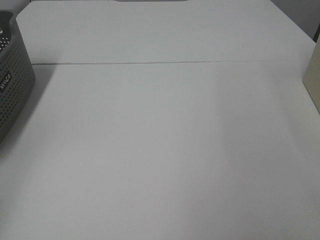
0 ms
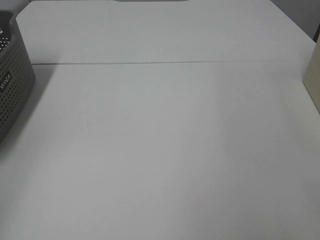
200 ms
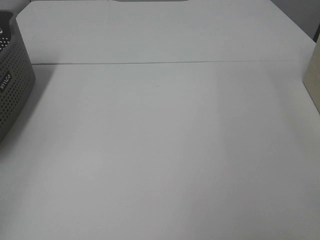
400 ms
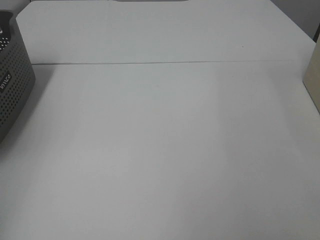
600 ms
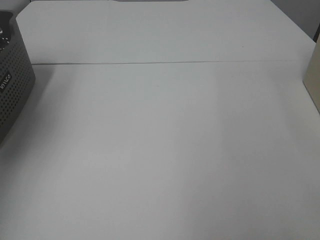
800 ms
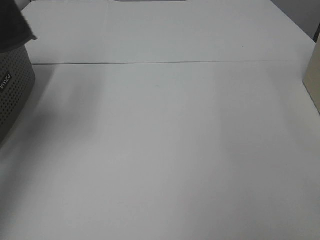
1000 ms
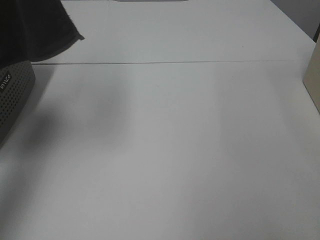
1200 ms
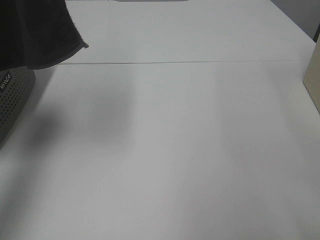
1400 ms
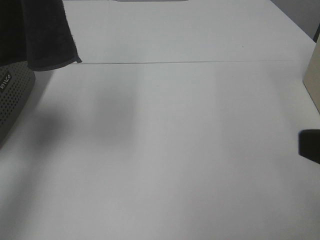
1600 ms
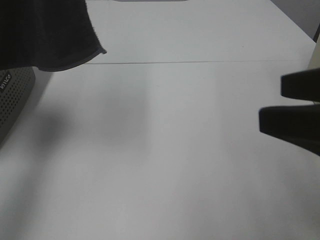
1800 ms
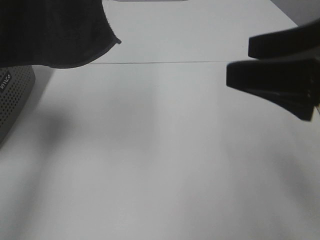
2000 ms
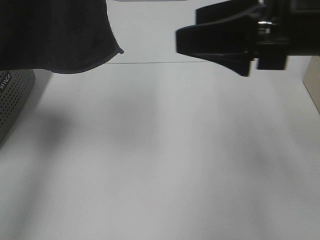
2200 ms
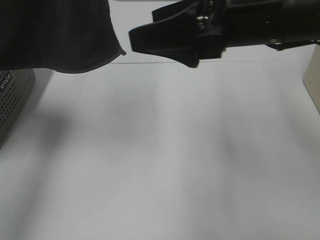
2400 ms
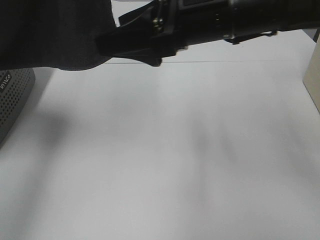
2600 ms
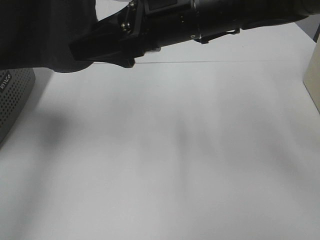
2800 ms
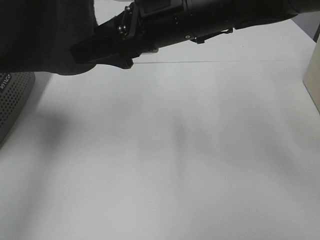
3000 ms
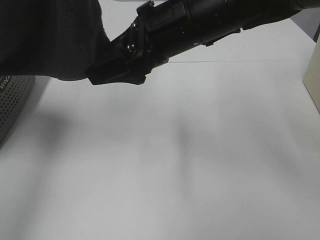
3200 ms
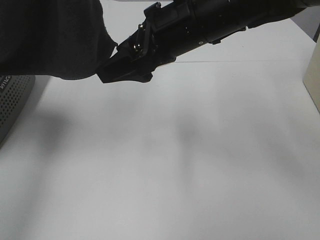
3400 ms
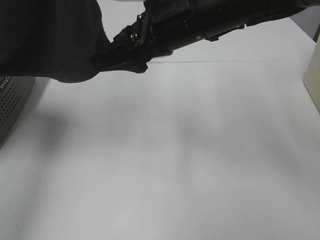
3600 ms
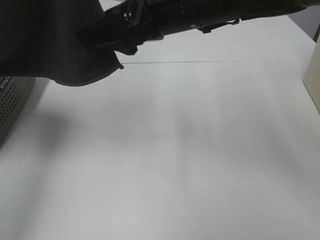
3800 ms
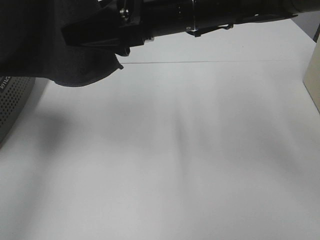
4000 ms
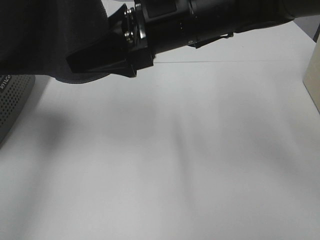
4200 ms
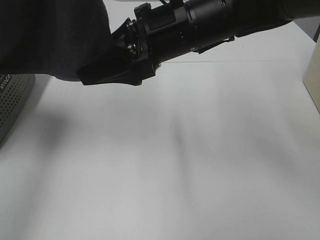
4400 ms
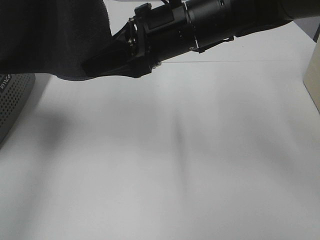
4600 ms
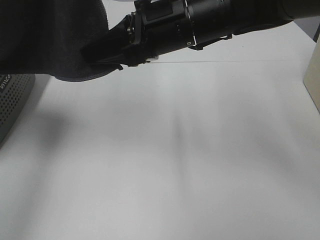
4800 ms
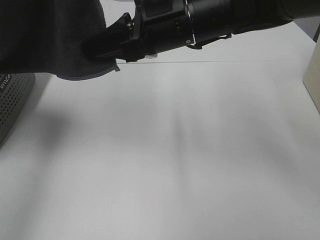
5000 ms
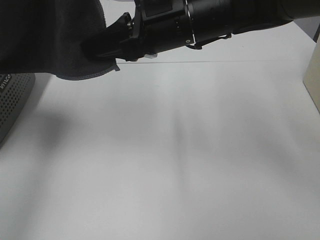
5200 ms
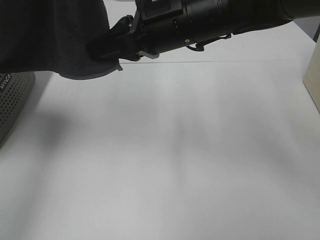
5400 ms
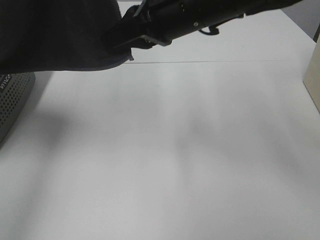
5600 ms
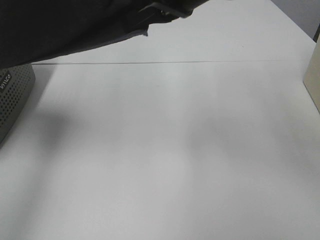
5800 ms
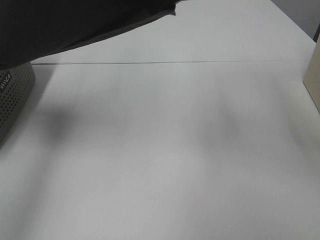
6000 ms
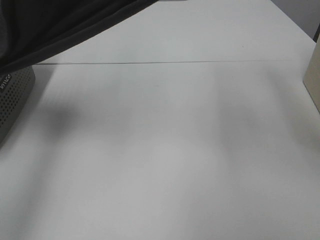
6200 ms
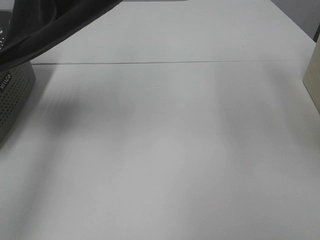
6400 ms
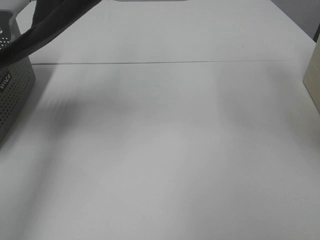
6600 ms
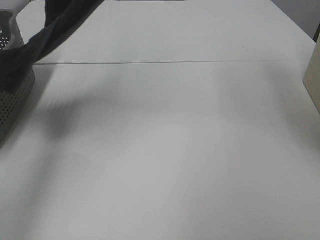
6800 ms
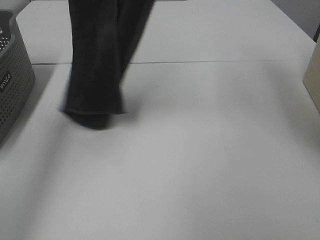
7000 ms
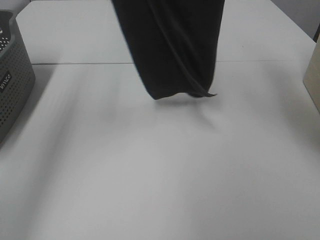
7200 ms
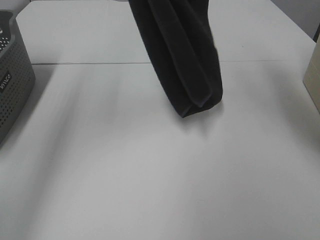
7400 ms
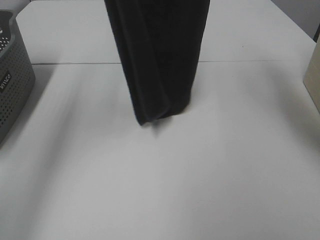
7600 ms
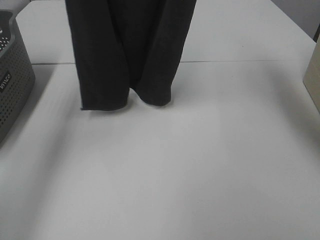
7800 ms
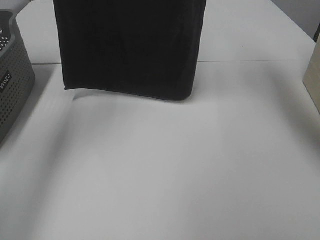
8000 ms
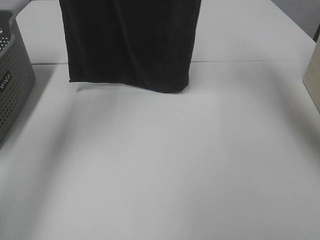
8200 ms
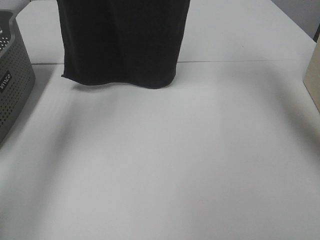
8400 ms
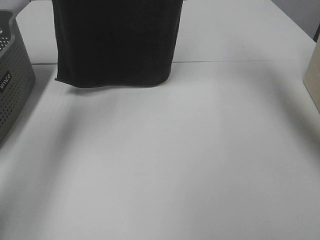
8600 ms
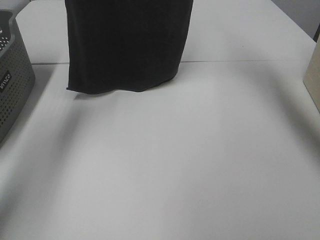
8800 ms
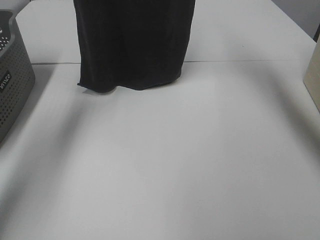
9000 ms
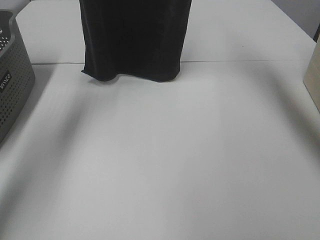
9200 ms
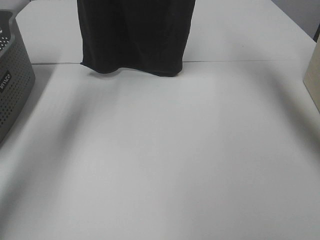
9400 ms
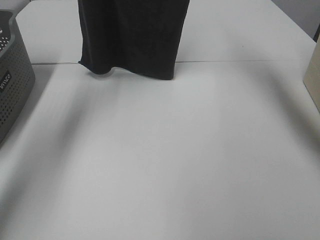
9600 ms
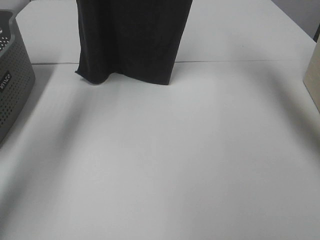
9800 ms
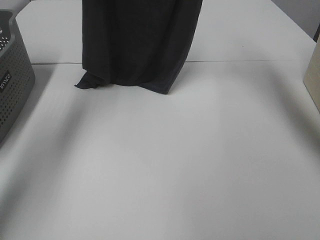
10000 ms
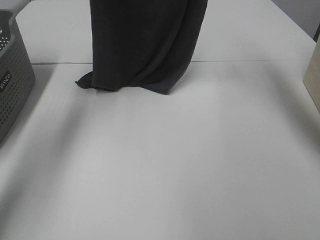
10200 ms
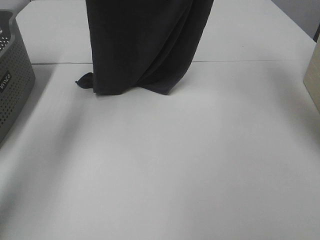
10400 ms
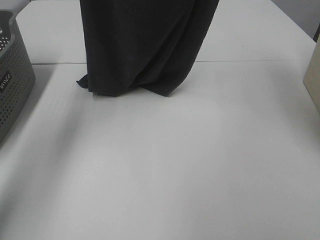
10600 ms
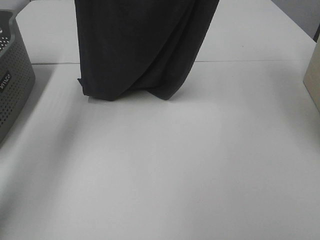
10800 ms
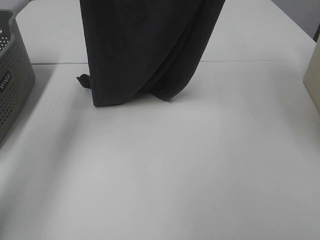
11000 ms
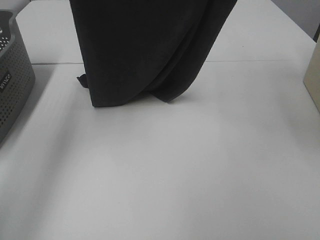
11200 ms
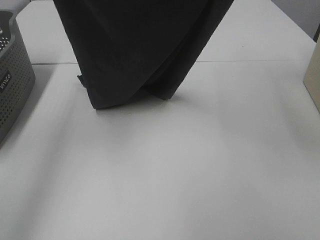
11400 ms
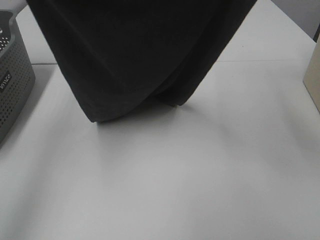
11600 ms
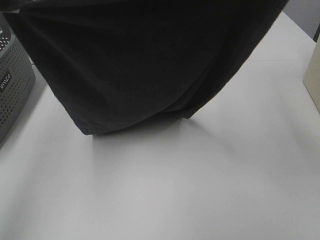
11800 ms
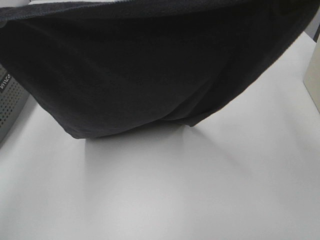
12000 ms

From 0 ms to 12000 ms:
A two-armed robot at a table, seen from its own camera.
Task of the whole recording: Remove the towel and place it.
Step, from 400 ms to 6000 ms: Right hand: grab a corner of the grey towel and straighten it.
From 0 ms to 1600 ms: The right gripper is displaced forward and to the left by approximately 10 cm. The left gripper moves upward and to the right, approximately 30 cm.
From 1600 ms to 3000 ms: The right gripper travels forward and to the left by roughly 30 cm.
From 3000 ms to 4400 ms: The grippers make only small movements.
From 4400 ms to 6000 ms: The right gripper is displaced upward by some 10 cm, and closes up.
From 6000 ms to 7600 ms: The right gripper heads upward, covering roughly 15 cm. Meanwhile the left gripper shifts about 10 cm forward.
From 7600 ms to 9000 ms: The right gripper moves forward and downward, about 10 cm; the left gripper heads forward, covering some 10 cm.
From 9000 ms to 10400 ms: The left gripper changes place by approximately 5 cm. The right gripper is displaced backward by about 5 cm.
From 10400 ms to 12000 ms: The two grippers go approximately 25 cm backward.

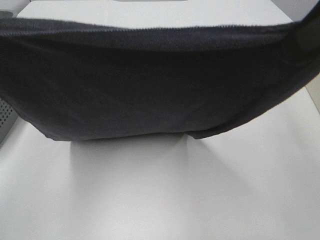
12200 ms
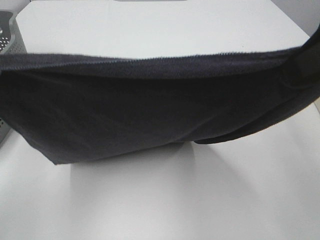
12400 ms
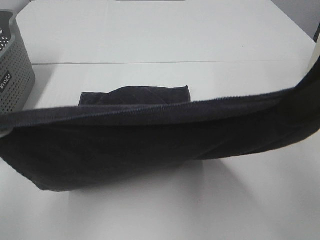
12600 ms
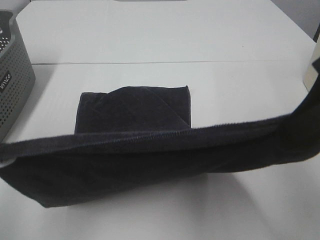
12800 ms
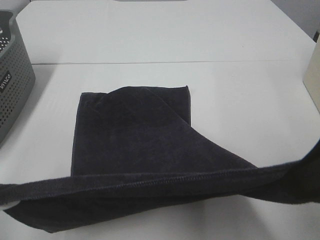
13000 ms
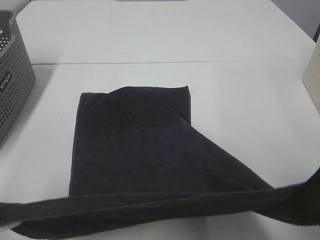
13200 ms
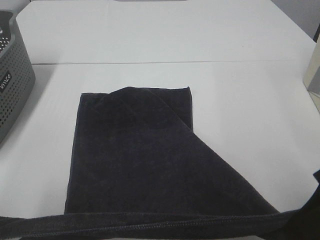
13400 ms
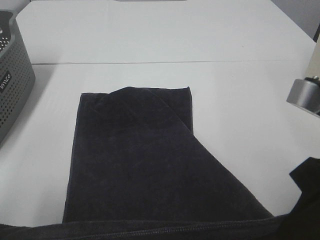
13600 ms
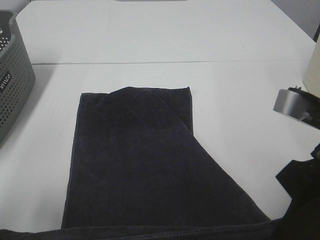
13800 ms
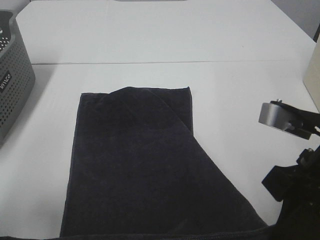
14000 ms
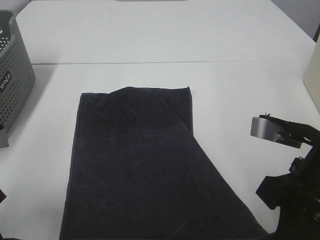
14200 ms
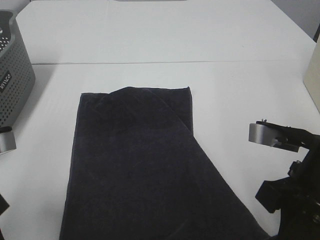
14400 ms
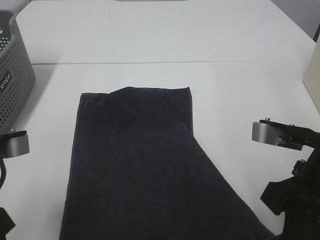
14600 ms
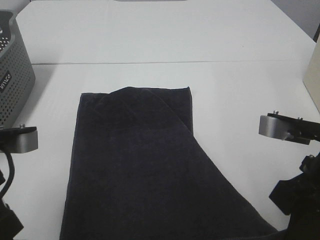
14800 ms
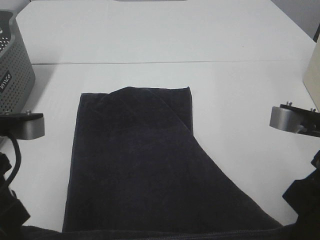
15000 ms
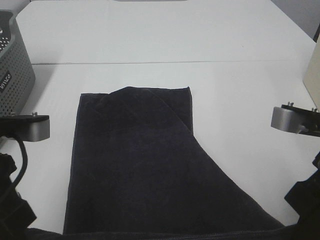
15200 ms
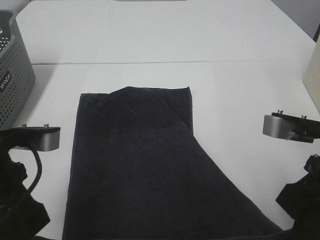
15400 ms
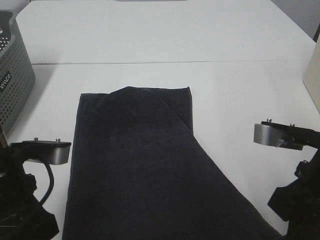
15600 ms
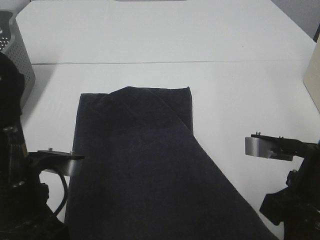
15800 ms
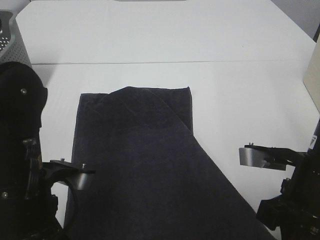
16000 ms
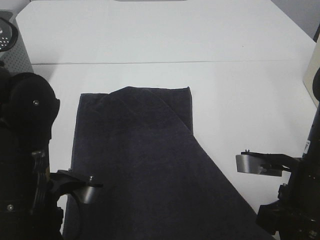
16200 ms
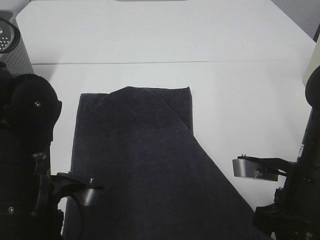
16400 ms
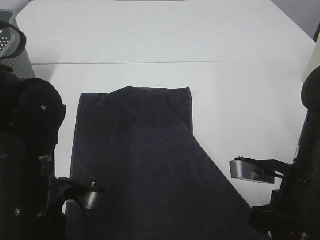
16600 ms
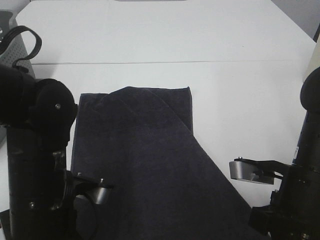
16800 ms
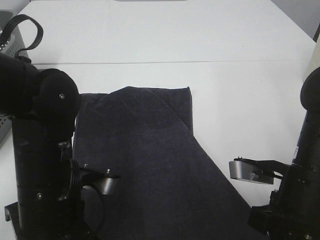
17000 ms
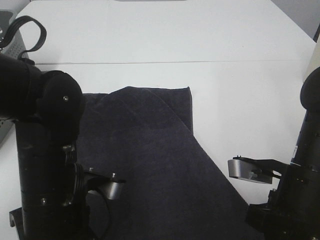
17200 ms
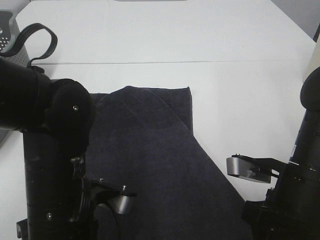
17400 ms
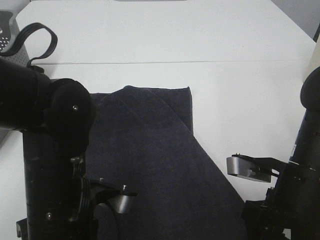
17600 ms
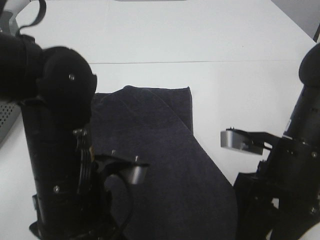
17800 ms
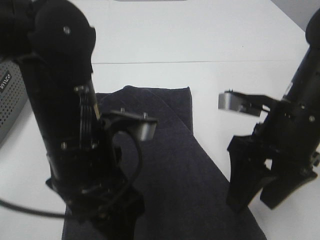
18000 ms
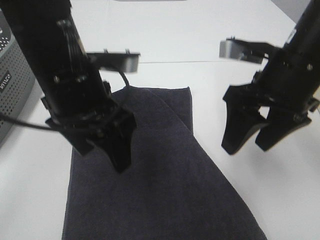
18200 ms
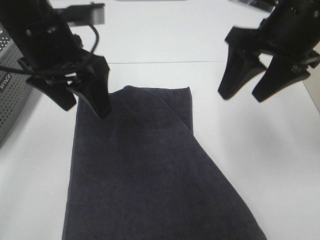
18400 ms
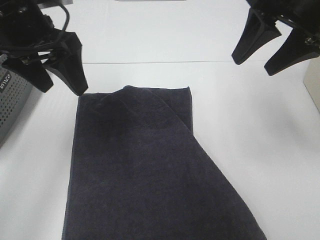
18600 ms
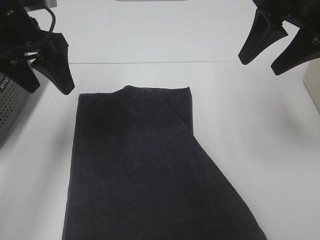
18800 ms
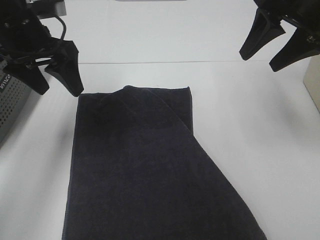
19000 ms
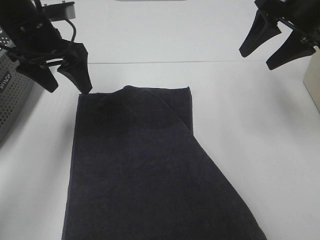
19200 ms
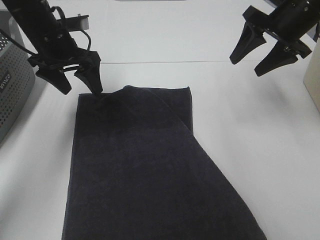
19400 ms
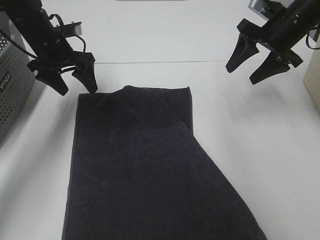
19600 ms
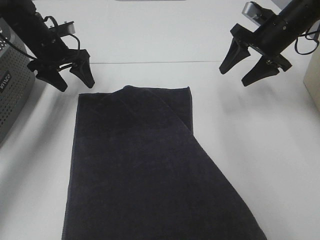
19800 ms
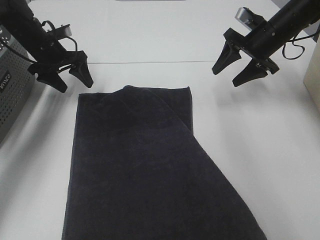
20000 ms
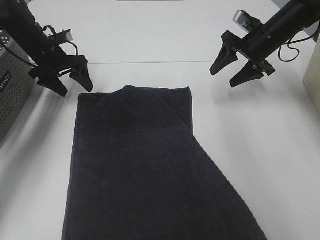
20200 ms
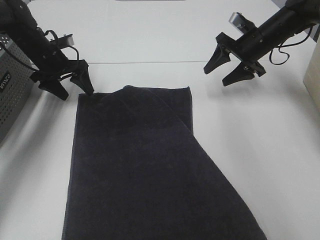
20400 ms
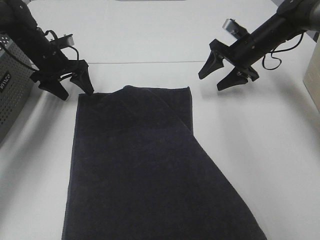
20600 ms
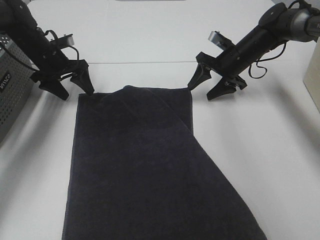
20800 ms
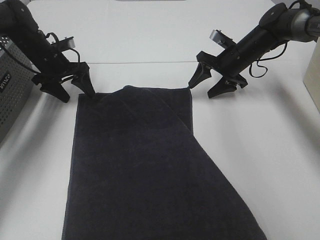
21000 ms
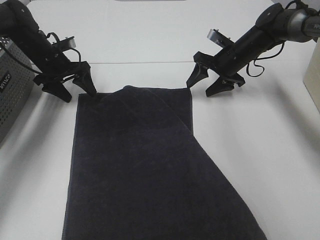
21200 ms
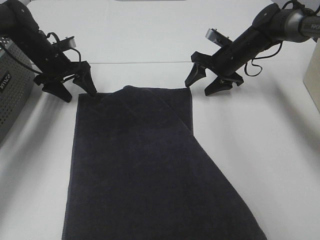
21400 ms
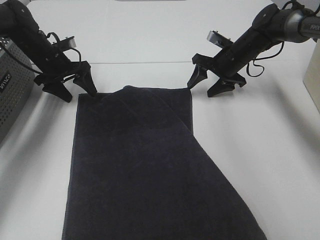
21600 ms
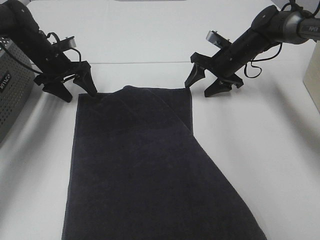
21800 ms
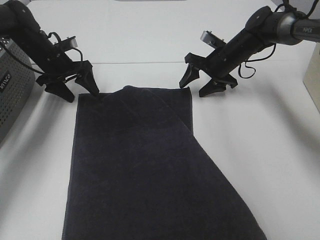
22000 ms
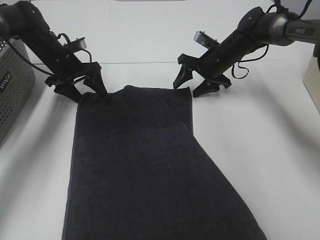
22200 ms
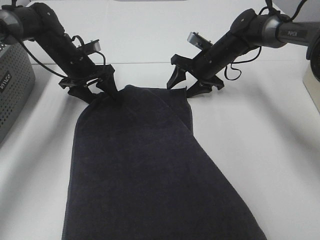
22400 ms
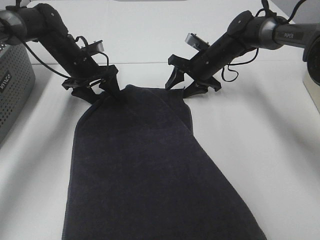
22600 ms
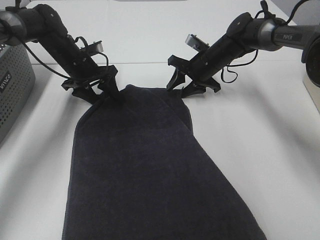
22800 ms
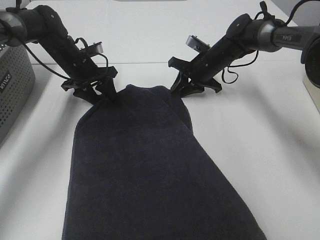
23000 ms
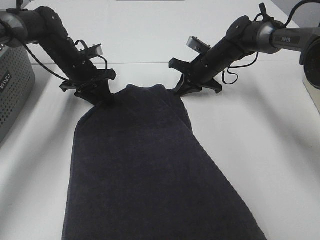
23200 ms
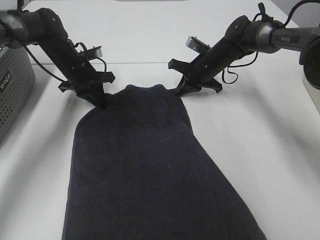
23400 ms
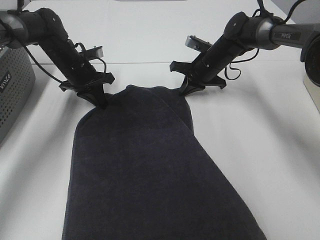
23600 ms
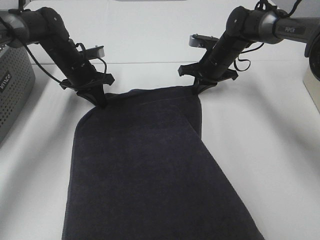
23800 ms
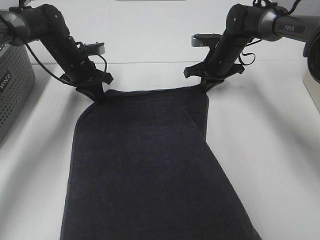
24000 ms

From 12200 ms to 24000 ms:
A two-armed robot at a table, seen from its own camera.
Task of the whole recording: Remove the towel and place it.
Step, from 12800 ms to 20600 ms: Left hand:adjust the gray towel.
Step, from 12800 ms to 20600 ms: Right hand:adjust the gray towel.
From 12200 ms to 13600 ms: The two grippers go about 15 cm downward.
From 13600 ms to 15200 ms: The left gripper shifts approximately 5 cm to the right.
From 15200 ms to 16600 ms: The right gripper travels downward by some 10 cm; the left gripper travels downward and to the right by roughly 10 cm.
From 16600 ms to 18200 ms: The two grippers go approximately 15 cm upward and forward. The left gripper opens, while the right gripper opens.
From 18200 ms to 19600 ms: The left gripper moves forward and to the left, about 25 cm. The right gripper travels forward and to the right by some 20 cm.
From 19600 ms to 21000 ms: The right gripper heads downward and forward, covering roughly 15 cm; the left gripper shifts about 5 cm downward.
From 21000 ms to 22600 ms: The right gripper heads to the left, covering roughly 5 cm, while the left gripper goes about 5 cm to the right.
From 22600 ms to 24000 ms: The left gripper closes; the right gripper closes its fingers.
